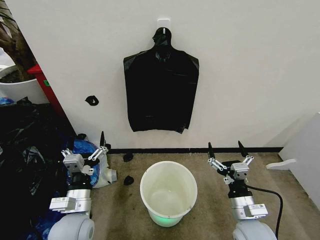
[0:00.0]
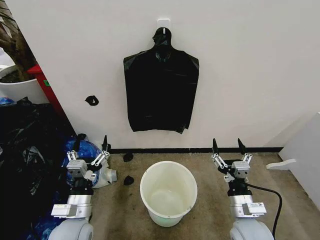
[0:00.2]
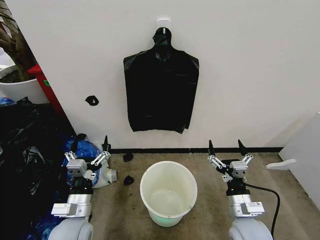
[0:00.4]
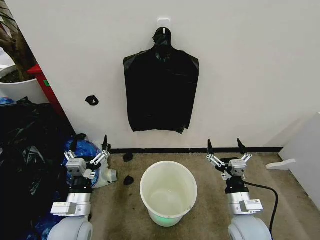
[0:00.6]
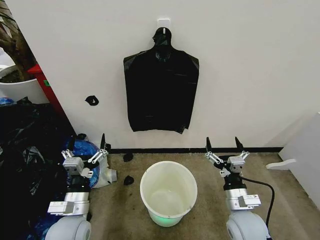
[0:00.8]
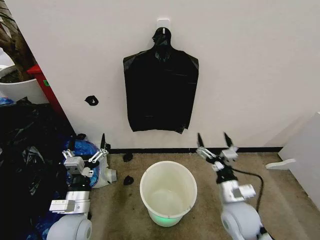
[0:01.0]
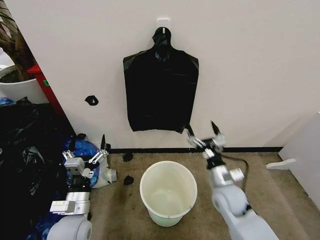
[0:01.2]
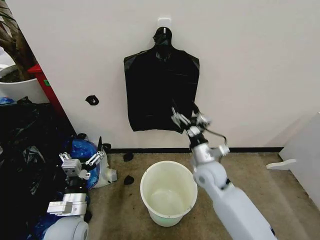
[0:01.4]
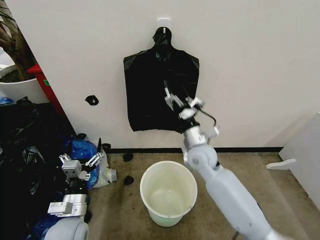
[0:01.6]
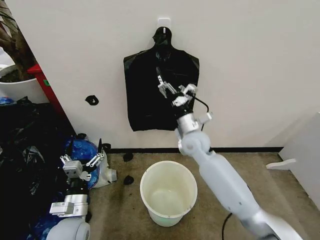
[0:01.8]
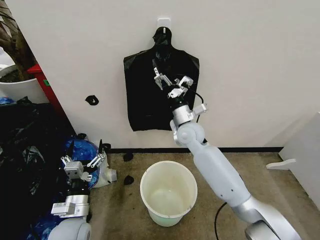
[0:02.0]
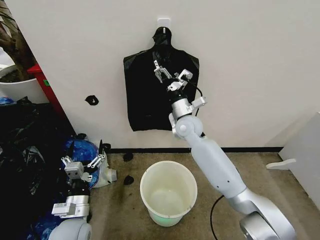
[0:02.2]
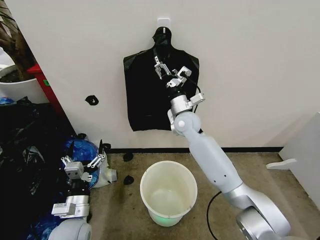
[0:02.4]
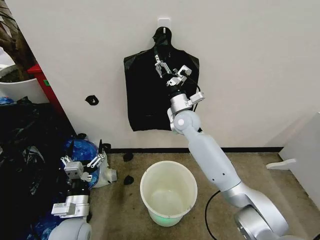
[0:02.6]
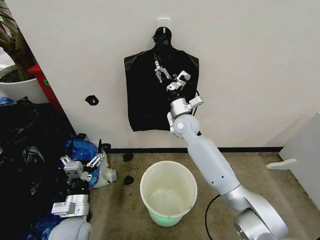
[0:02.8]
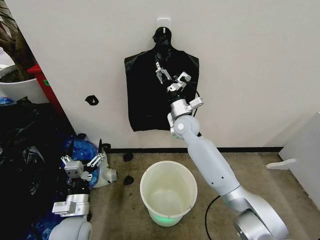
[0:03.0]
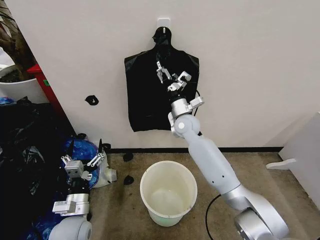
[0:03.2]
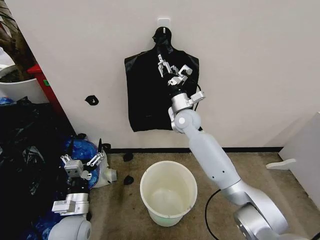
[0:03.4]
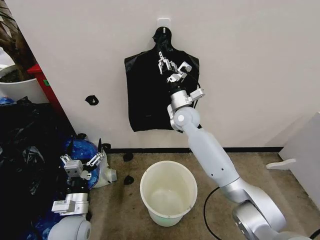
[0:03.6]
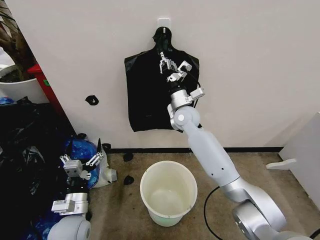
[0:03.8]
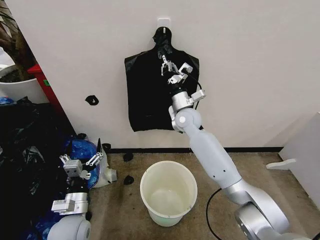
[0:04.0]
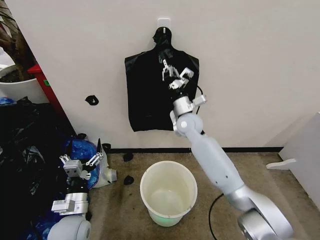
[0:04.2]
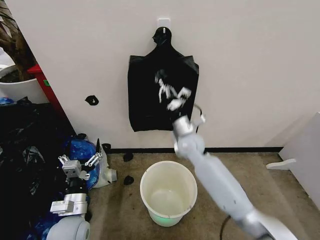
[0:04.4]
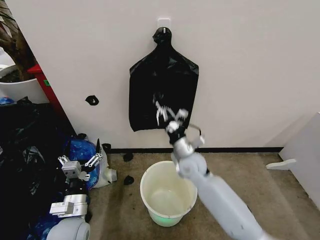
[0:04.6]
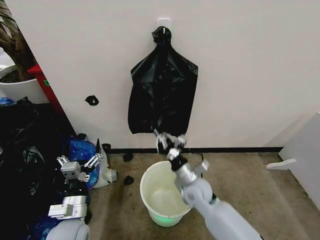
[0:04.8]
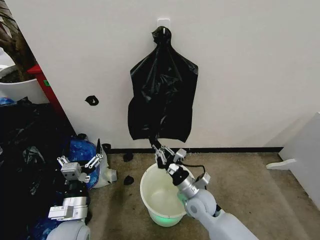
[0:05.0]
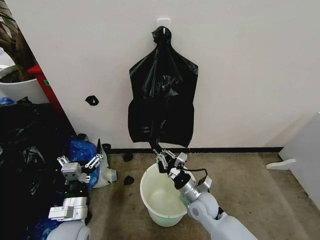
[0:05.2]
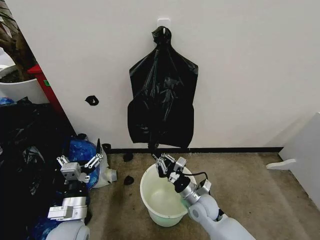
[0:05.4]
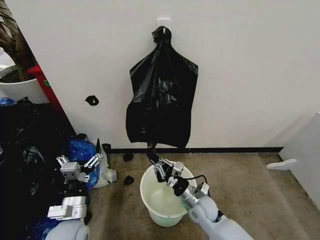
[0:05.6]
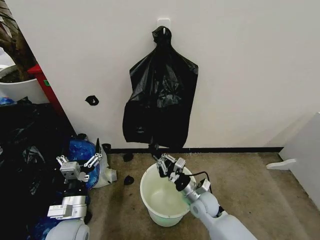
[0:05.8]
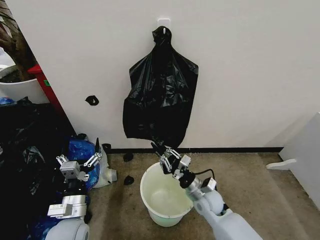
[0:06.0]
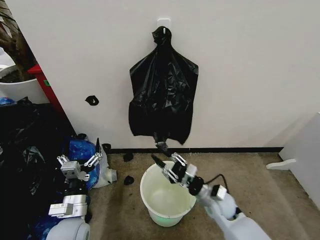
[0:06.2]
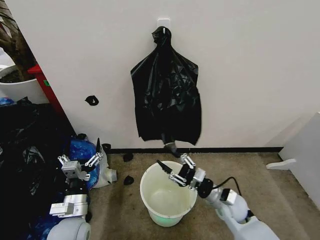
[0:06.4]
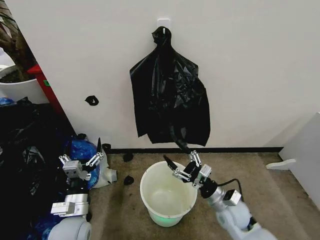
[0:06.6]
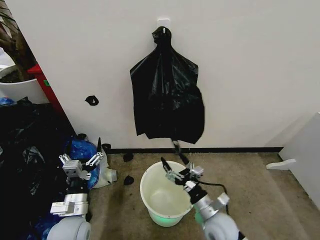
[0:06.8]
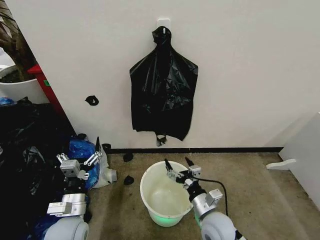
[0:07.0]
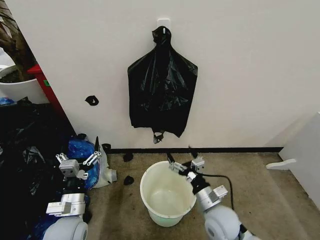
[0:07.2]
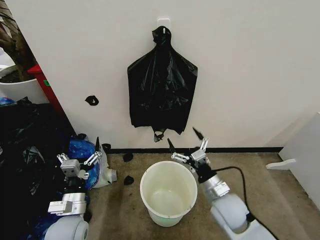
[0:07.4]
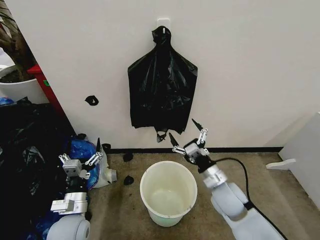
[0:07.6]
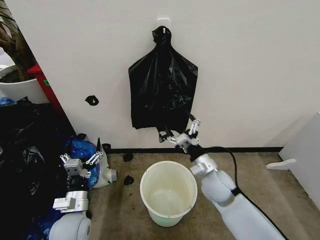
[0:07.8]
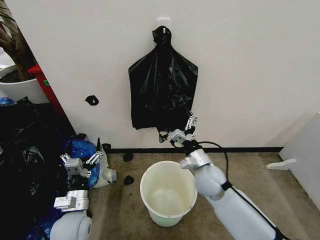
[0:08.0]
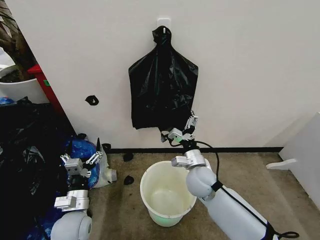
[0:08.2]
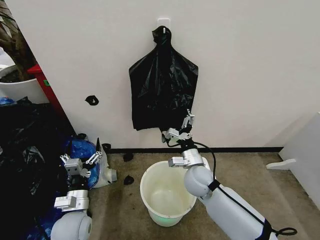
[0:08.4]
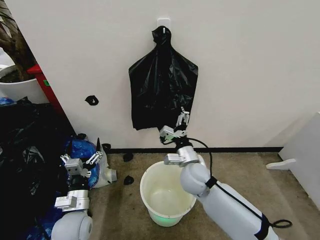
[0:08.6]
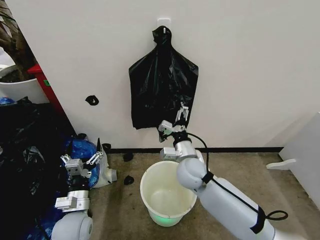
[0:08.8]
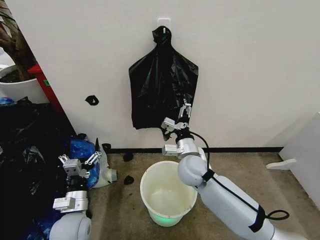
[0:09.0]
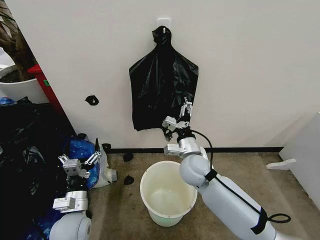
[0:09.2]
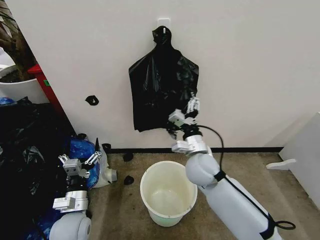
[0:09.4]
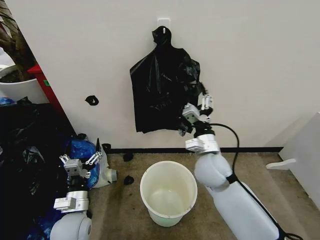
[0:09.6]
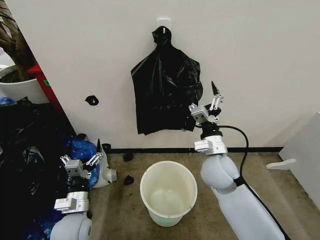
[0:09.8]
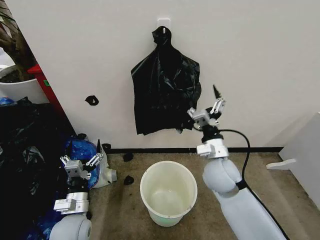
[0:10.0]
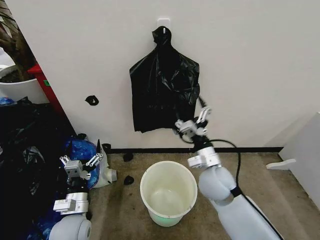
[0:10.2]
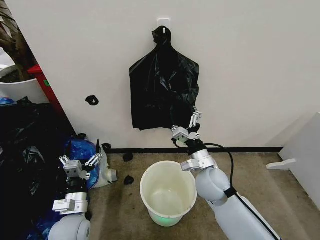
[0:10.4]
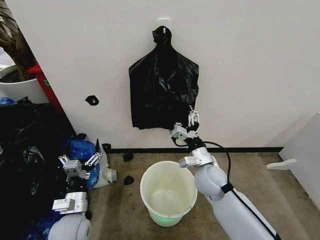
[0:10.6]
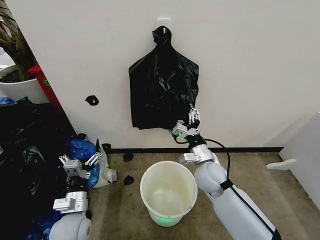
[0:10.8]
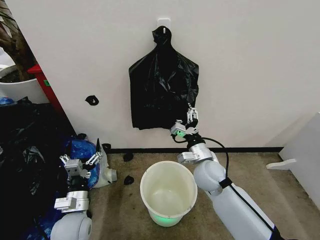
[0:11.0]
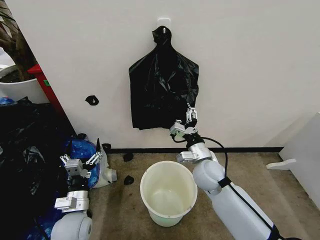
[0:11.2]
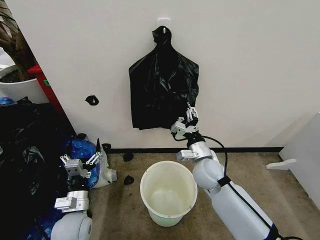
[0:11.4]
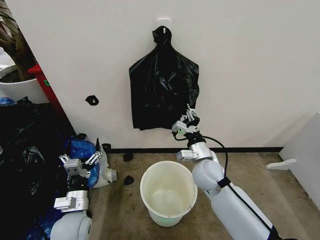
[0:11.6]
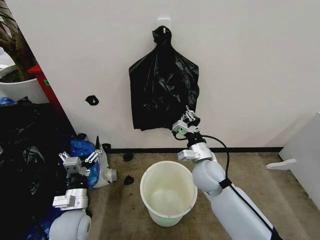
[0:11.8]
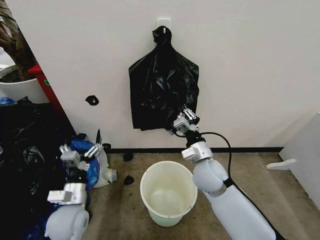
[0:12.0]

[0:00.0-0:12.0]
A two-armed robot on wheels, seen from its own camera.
Task of the whole recording: Place the garbage bag over the trash bin.
0:01.6 to 0:03.0: The right gripper travels forward by approximately 10 cm.
0:03.0 to 0:04.4: The right gripper shifts approximately 5 cm backward, and closes up.
0:04.4 to 0:06.0: The right gripper moves downward and backward, roughly 20 cm.
0:06.0 to 0:07.6: The right gripper heads upward, covering about 10 cm, moves about 10 cm backward and comes back, and opens.
0:07.6 to 0:09.0: The right gripper travels to the left and forward by about 10 cm.
0:09.0 to 0:10.4: The right gripper heads to the right, covering roughly 5 cm, and closes, then reopens.
0:10.4 to 0:12.0: The right gripper closes up.

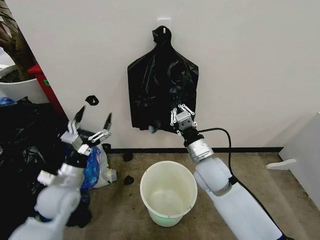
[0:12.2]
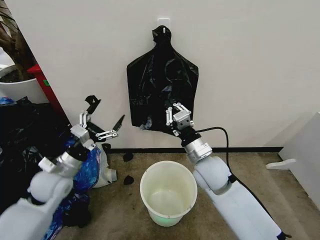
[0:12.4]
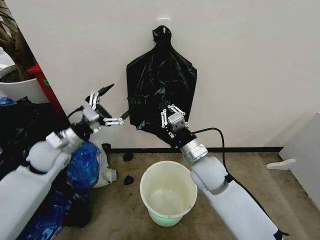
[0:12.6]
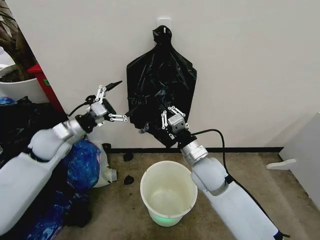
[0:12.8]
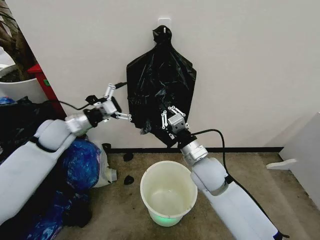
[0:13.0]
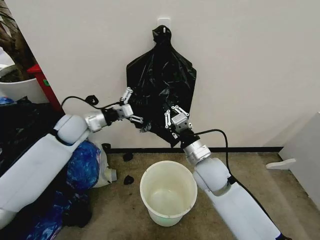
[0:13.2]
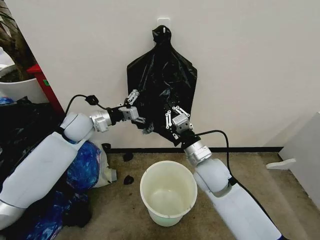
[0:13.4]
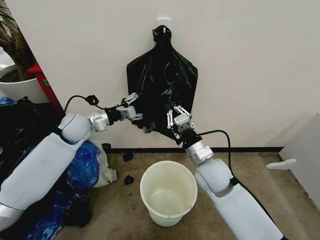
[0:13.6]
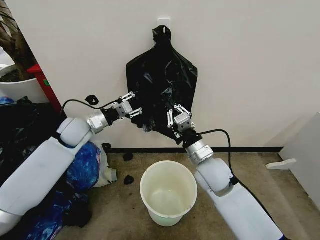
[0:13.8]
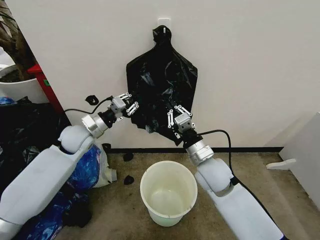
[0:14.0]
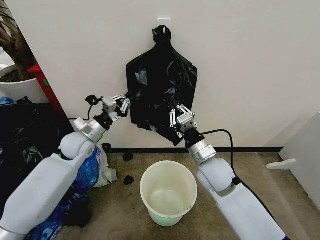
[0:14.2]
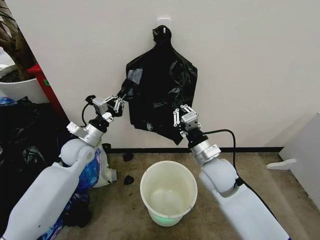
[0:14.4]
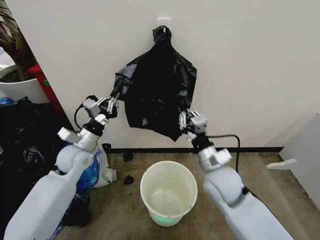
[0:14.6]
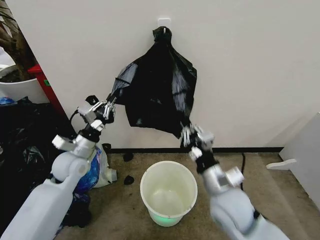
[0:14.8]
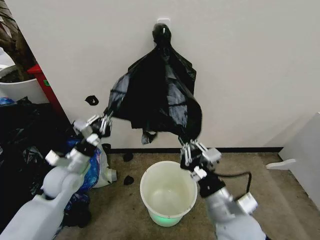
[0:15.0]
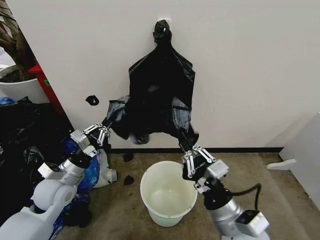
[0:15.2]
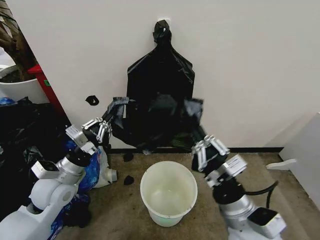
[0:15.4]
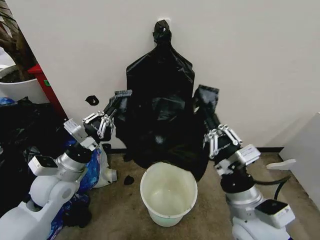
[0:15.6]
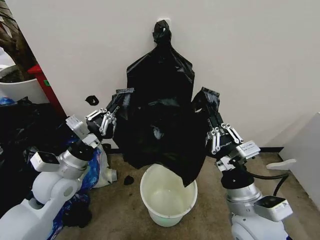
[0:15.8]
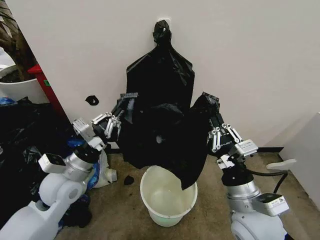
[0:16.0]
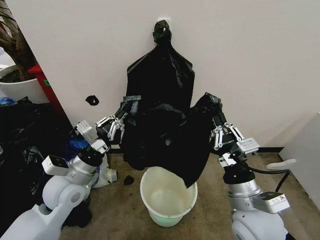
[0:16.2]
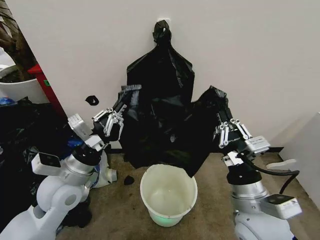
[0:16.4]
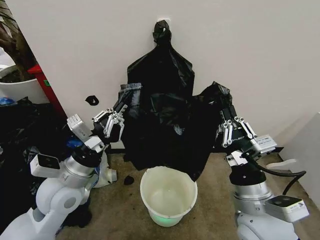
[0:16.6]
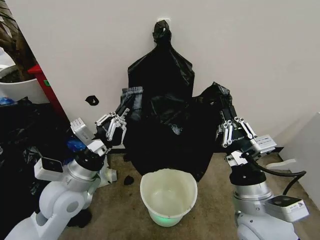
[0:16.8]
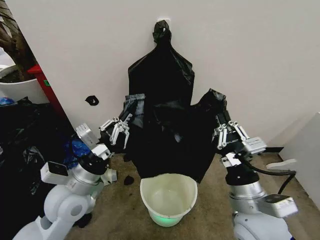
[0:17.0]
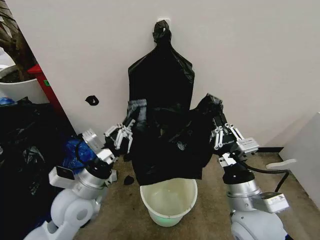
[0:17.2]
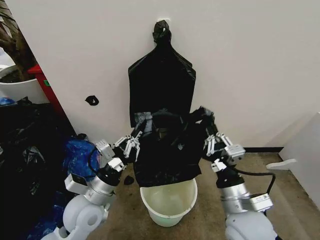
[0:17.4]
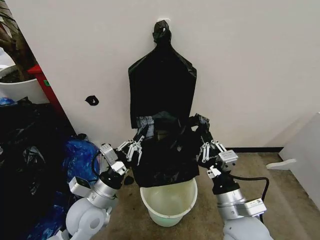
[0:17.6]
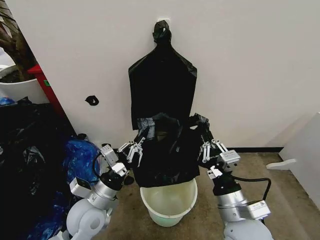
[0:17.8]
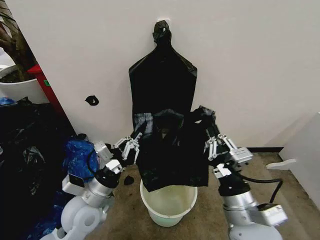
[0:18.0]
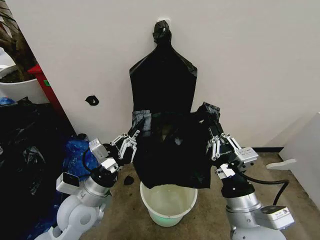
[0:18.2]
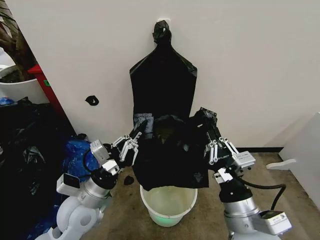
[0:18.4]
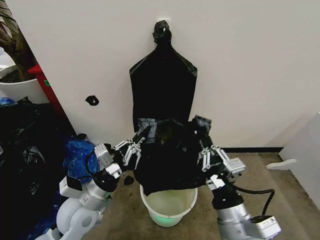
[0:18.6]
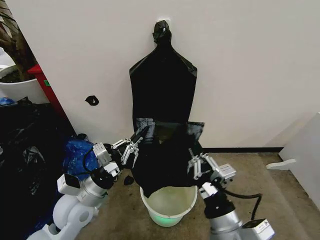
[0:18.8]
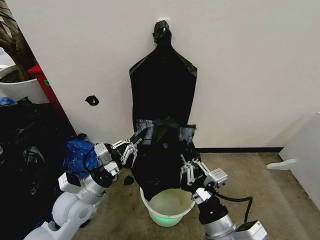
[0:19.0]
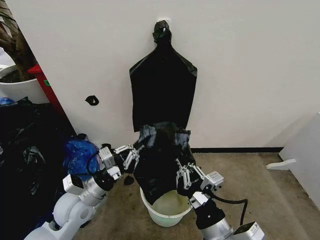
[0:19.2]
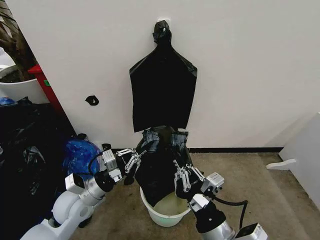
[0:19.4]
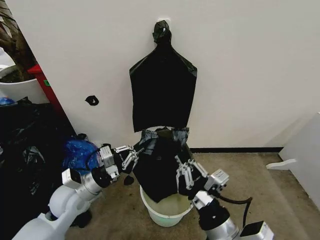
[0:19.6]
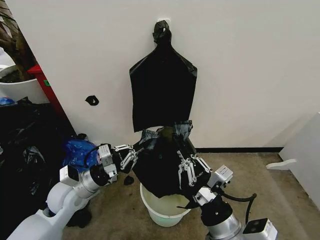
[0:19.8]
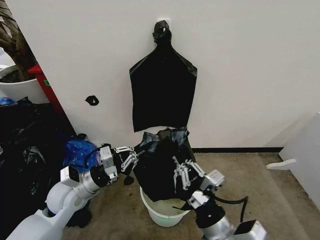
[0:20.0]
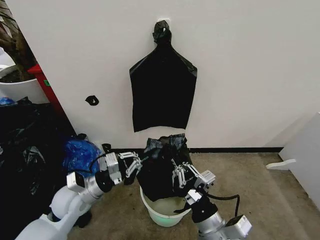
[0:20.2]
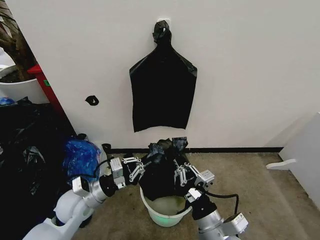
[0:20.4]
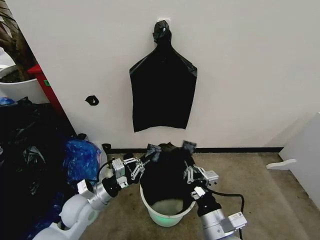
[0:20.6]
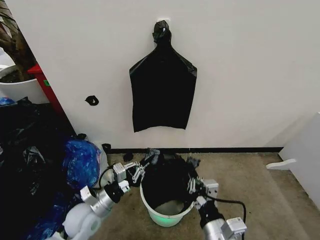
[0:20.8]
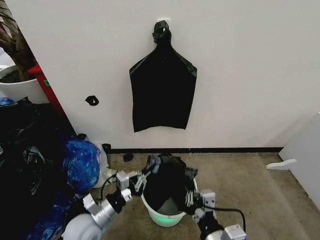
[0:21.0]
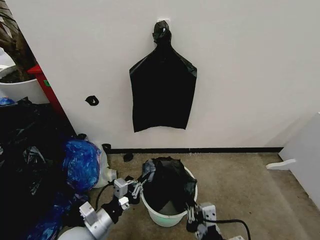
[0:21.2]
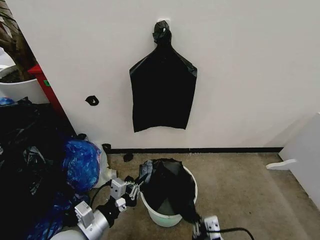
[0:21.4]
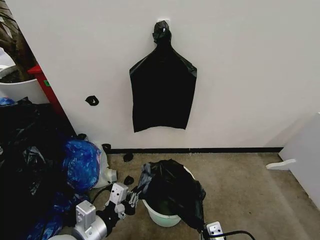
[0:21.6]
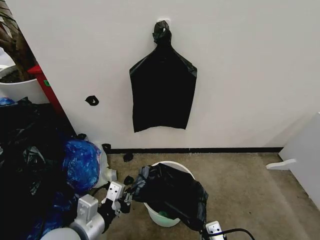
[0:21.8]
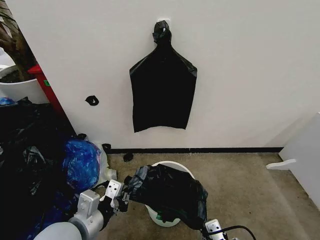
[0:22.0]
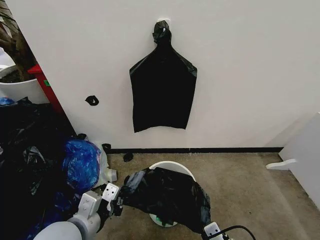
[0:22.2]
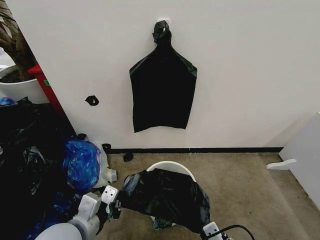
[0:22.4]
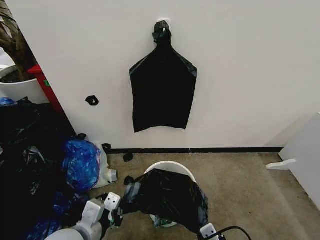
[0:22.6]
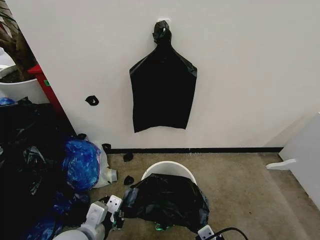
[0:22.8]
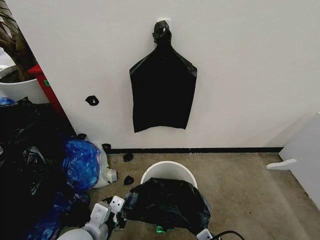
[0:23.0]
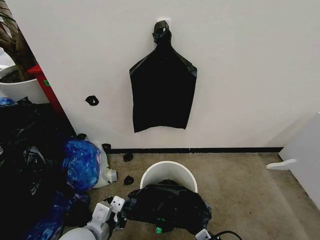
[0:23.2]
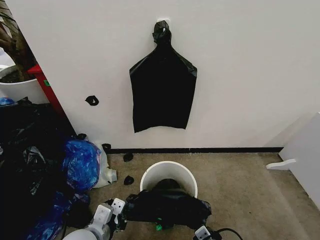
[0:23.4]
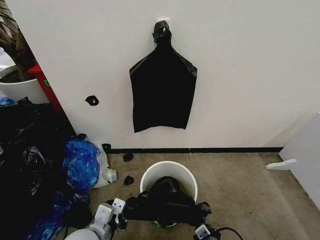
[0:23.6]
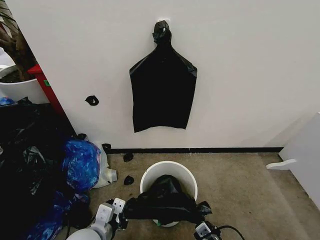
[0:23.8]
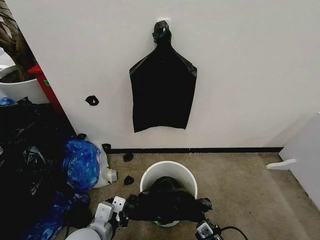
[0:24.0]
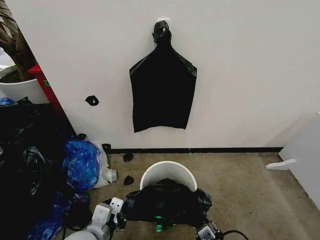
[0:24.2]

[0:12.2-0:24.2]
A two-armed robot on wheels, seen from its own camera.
Task of the whole recording: Place the garbage bag over the trash bin.
0:12.2 to 0:13.8: The left gripper moves forward and upward, some 20 cm, and closes up.
0:13.8 to 0:15.2: The left gripper shifts some 20 cm backward and downward, and closes up, while the right gripper heads backward, covering roughly 15 cm.
0:15.2 to 0:16.6: The left gripper shifts about 10 cm upward and to the right, while the right gripper travels upward by some 5 cm.
0:16.6 to 0:18.2: The left gripper moves downward, some 5 cm.
0:18.2 to 0:19.8: The left gripper goes approximately 5 cm to the left. The right gripper moves about 5 cm.
0:19.8 to 0:21.2: The left gripper heads backward and downward, covering about 15 cm, while the right gripper is displaced backward by approximately 5 cm.
0:21.2 to 0:22.6: The left gripper moves upward, roughly 10 cm.
0:22.6 to 0:24.2: The right gripper shifts roughly 5 cm downward.
